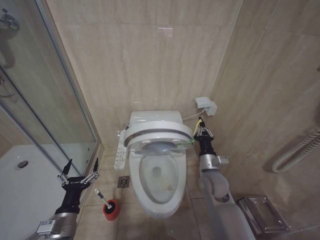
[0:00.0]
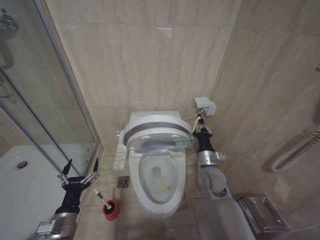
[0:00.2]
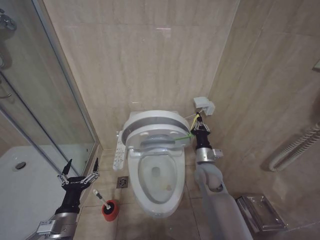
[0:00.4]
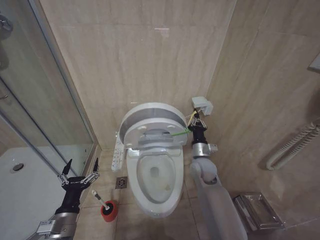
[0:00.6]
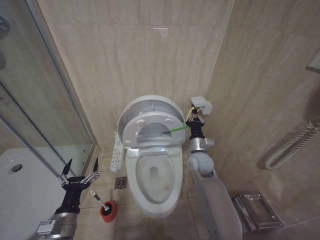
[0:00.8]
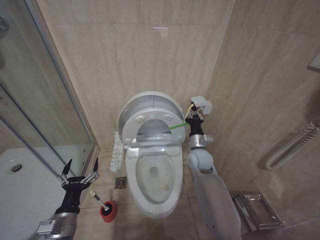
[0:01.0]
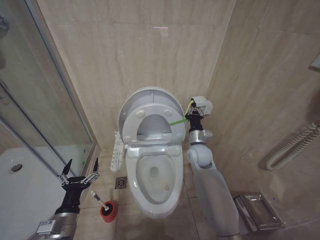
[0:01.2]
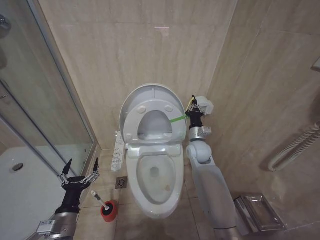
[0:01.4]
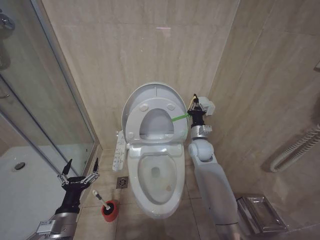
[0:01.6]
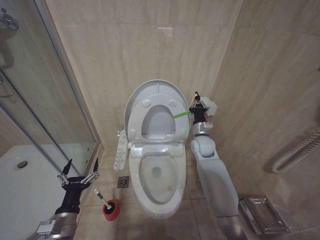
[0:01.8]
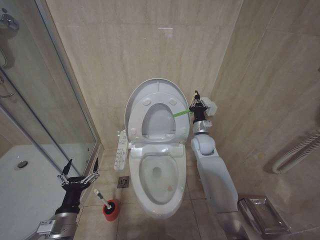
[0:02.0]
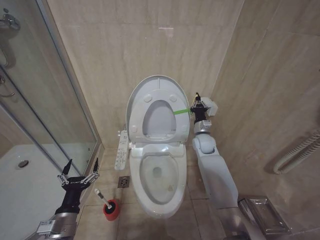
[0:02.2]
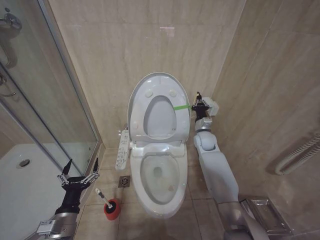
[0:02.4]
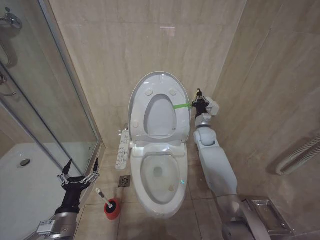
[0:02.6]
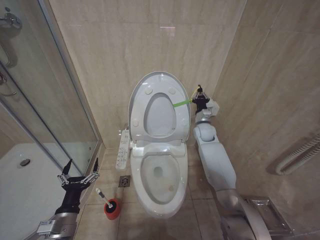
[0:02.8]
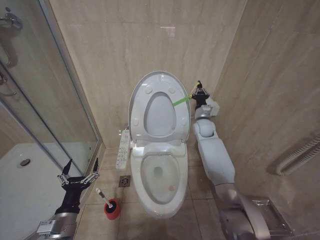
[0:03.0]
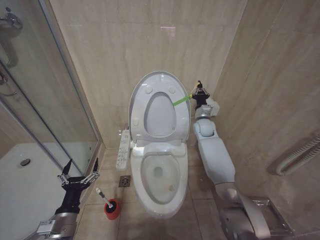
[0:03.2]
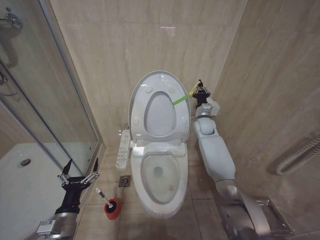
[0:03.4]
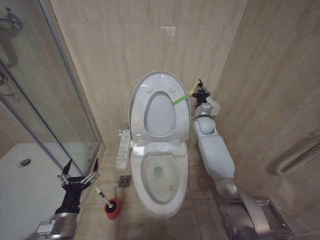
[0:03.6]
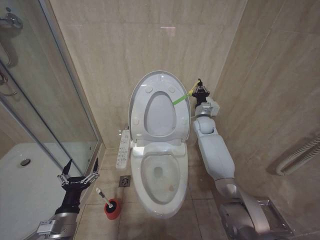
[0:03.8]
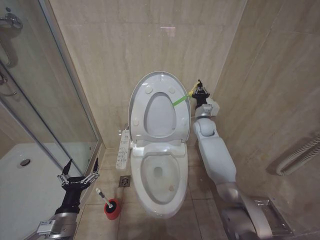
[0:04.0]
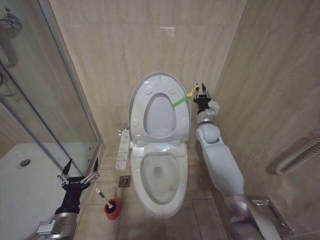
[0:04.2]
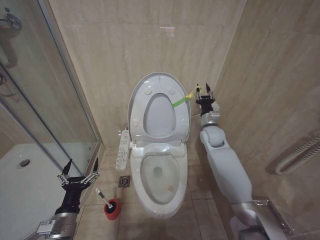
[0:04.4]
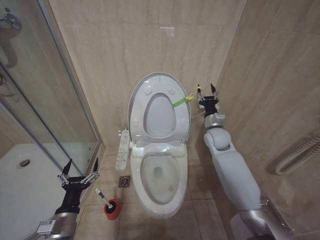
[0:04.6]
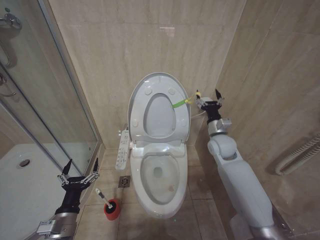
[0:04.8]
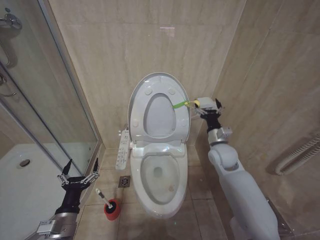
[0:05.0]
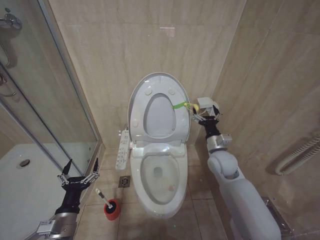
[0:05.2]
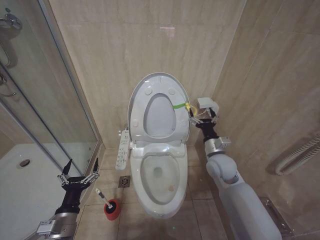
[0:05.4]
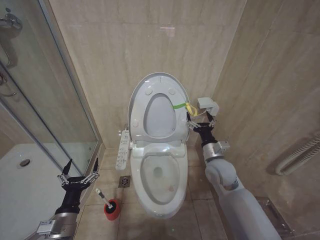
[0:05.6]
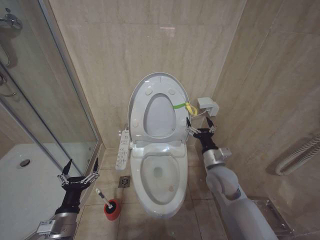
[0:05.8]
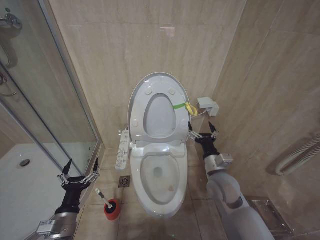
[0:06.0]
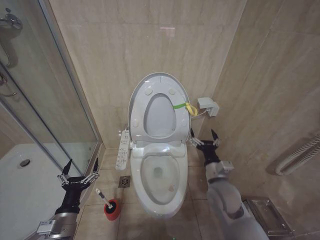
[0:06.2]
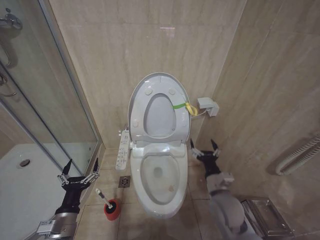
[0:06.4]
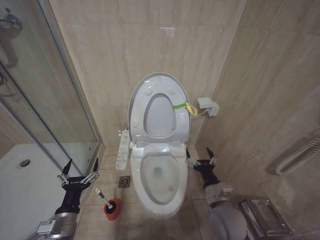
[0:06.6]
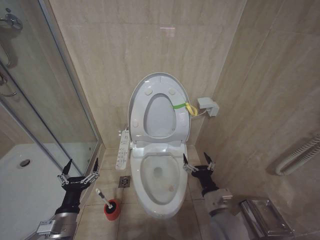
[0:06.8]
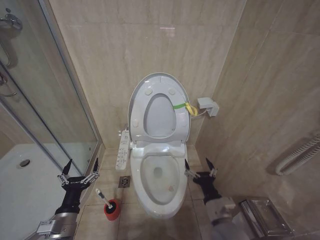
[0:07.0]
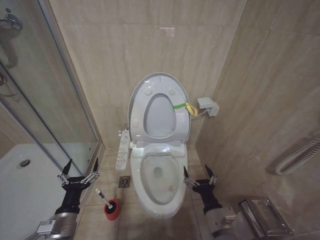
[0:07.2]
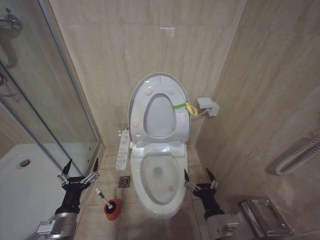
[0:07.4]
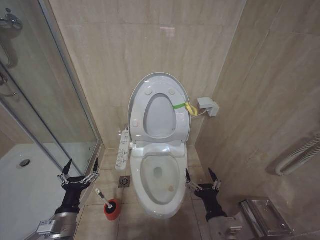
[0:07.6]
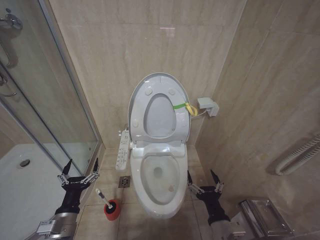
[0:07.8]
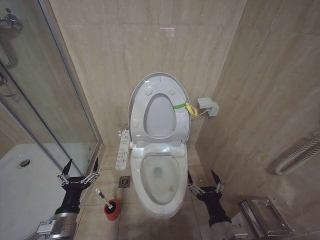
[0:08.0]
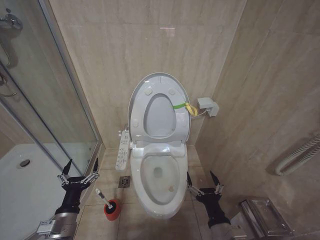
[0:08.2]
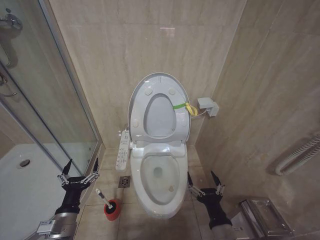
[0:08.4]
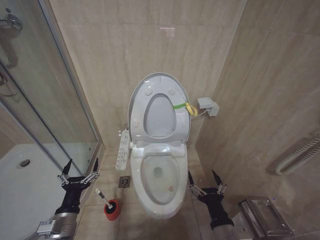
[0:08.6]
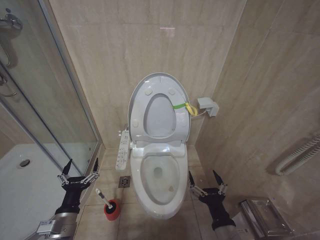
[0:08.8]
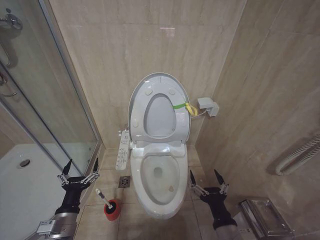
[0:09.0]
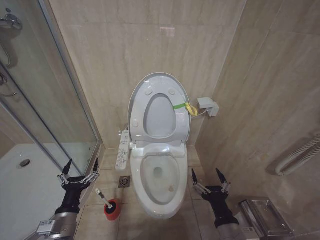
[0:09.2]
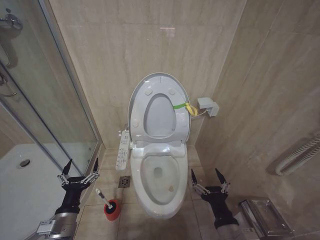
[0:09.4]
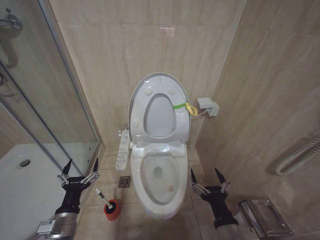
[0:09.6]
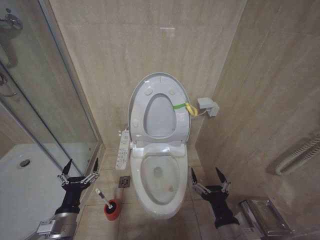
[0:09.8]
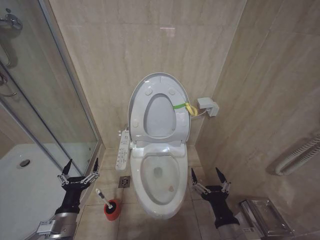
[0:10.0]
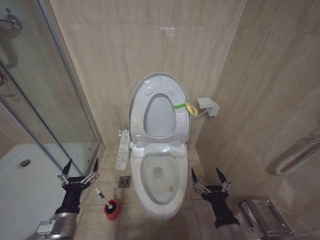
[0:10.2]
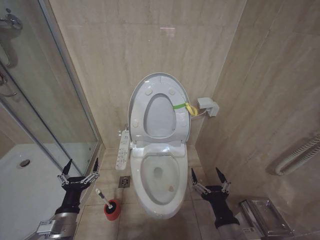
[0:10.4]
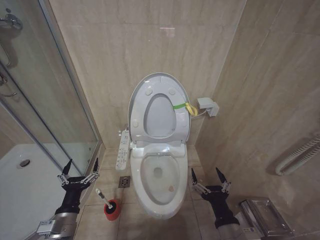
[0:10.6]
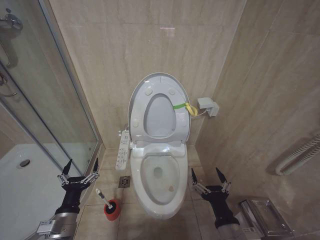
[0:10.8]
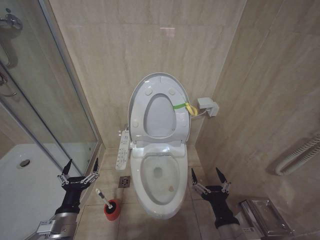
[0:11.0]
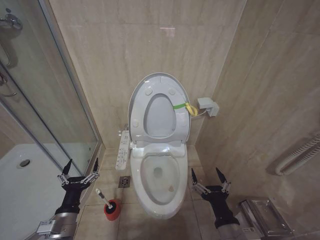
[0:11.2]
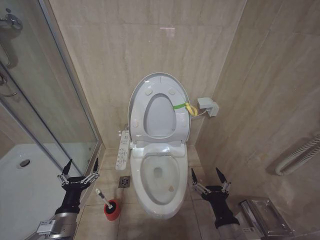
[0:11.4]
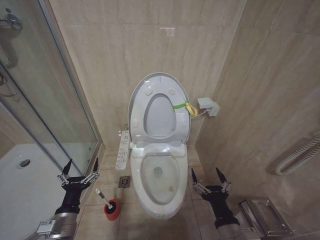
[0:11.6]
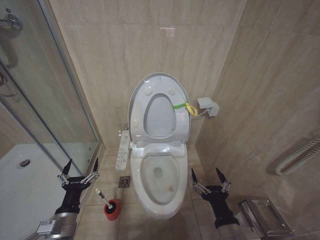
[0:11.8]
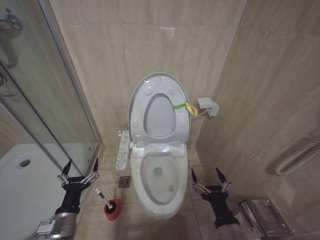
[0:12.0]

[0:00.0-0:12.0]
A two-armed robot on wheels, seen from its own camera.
Task of the whole recording: Open the toilet lid, clean the toilet bowl with a toilet brush, close the toilet lid, and flush.
0:00.0 to 0:01.6: The right gripper goes about 15 cm forward.
0:01.6 to 0:03.0: The right gripper goes approximately 10 cm forward.
0:03.0 to 0:04.4: The grippers make only small movements.
0:04.4 to 0:06.0: The right gripper shifts roughly 20 cm backward, and opens.
0:06.0 to 0:07.6: The right gripper moves backward and downward, approximately 20 cm.
0:07.6 to 0:09.0: There are only small adjustments of the grippers.
0:09.0 to 0:12.0: Neither gripper changes place.

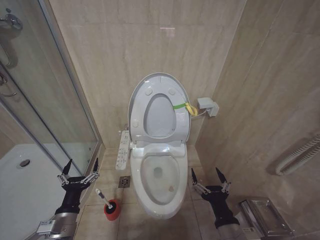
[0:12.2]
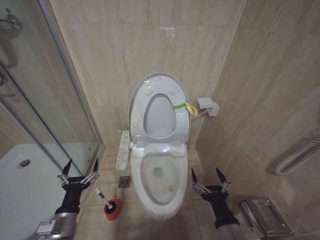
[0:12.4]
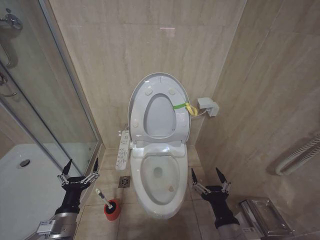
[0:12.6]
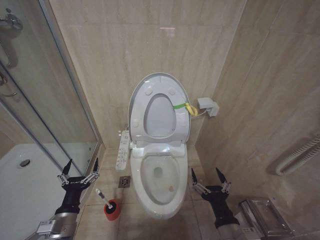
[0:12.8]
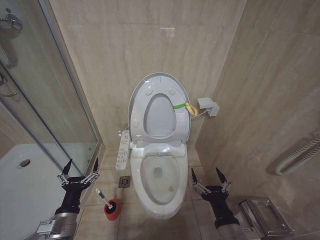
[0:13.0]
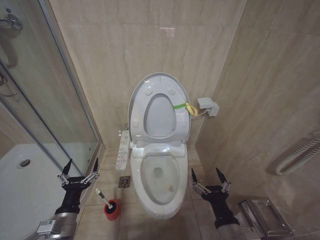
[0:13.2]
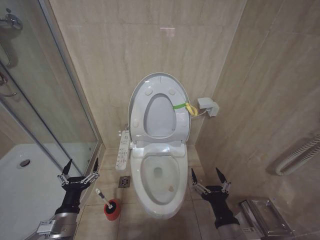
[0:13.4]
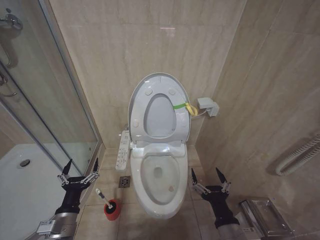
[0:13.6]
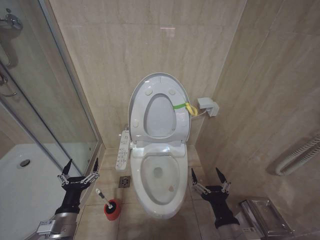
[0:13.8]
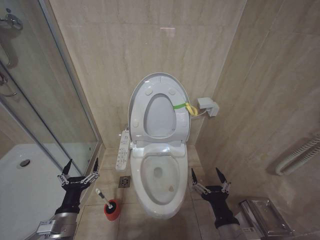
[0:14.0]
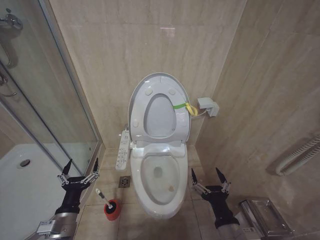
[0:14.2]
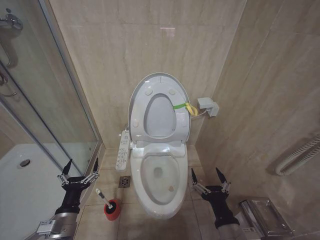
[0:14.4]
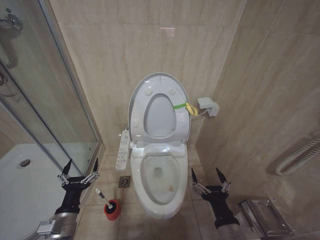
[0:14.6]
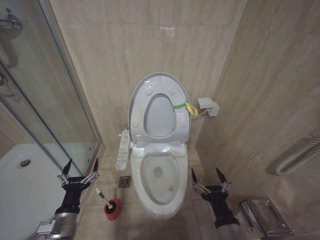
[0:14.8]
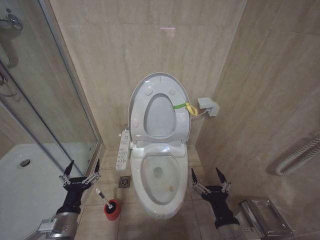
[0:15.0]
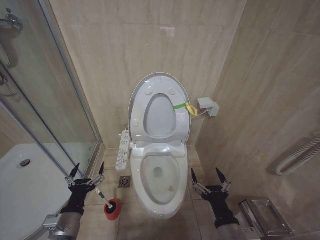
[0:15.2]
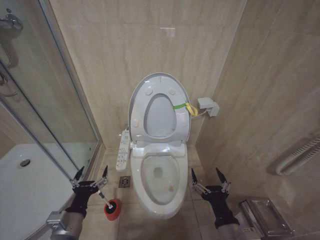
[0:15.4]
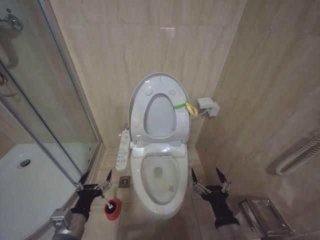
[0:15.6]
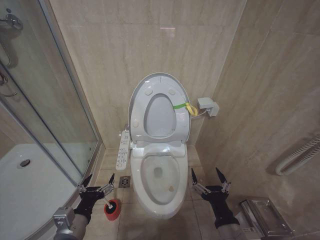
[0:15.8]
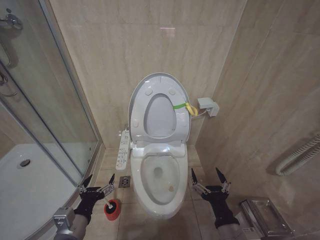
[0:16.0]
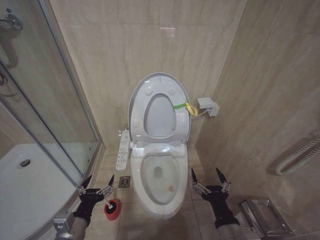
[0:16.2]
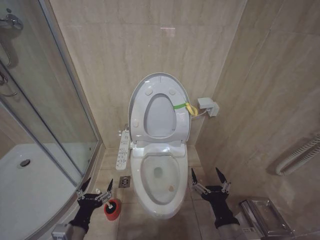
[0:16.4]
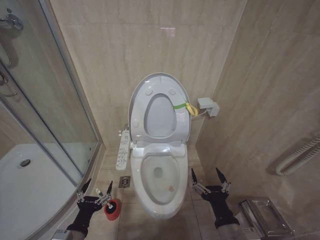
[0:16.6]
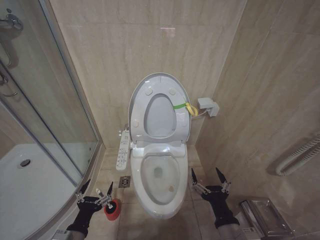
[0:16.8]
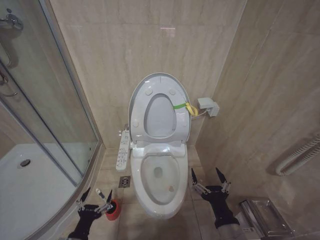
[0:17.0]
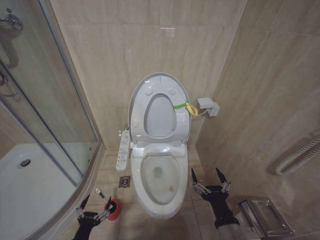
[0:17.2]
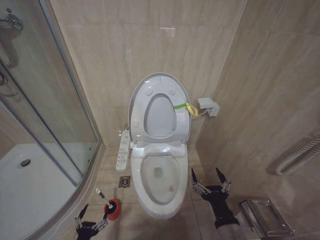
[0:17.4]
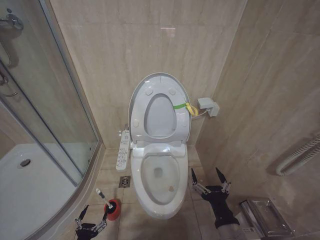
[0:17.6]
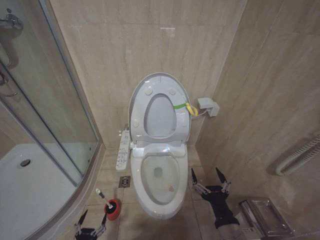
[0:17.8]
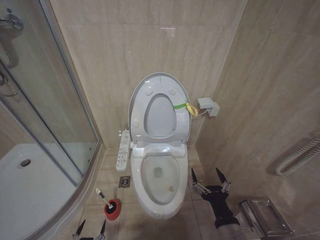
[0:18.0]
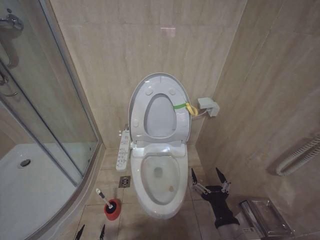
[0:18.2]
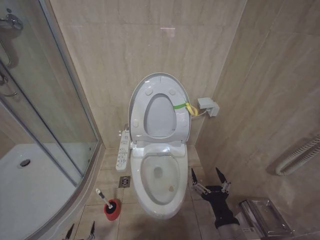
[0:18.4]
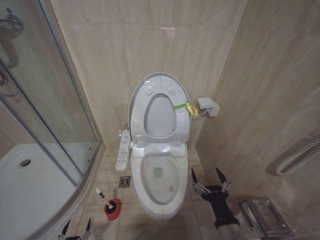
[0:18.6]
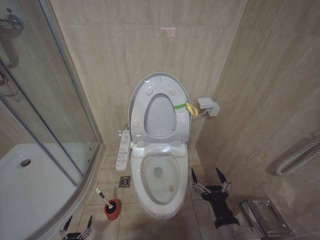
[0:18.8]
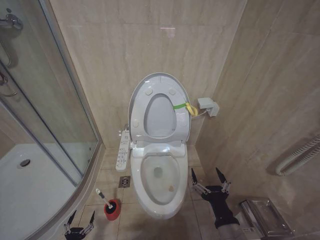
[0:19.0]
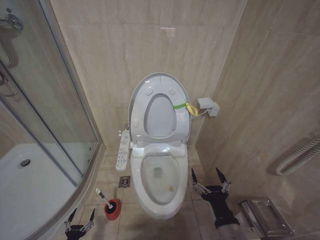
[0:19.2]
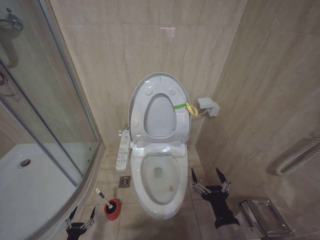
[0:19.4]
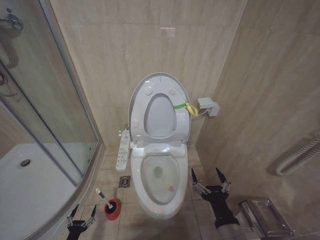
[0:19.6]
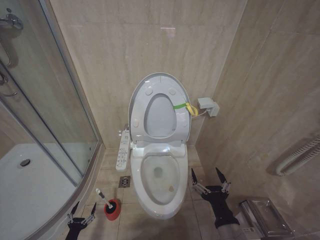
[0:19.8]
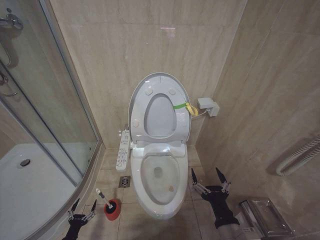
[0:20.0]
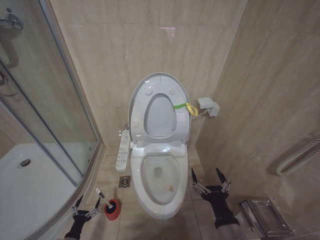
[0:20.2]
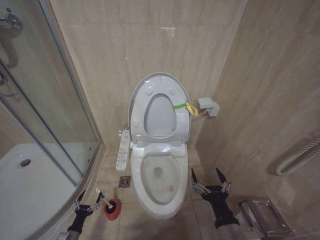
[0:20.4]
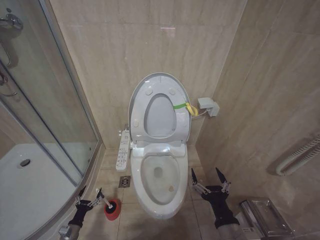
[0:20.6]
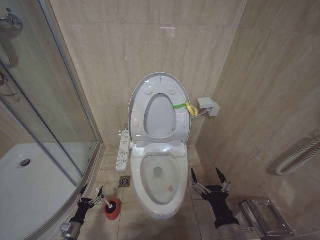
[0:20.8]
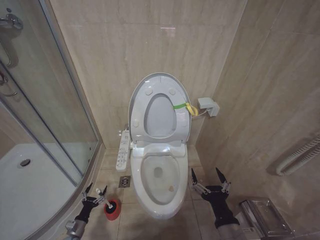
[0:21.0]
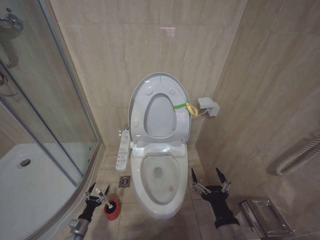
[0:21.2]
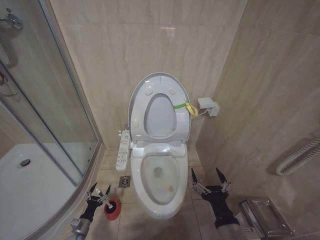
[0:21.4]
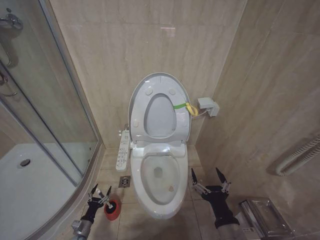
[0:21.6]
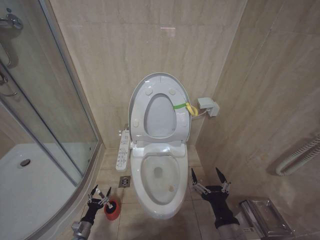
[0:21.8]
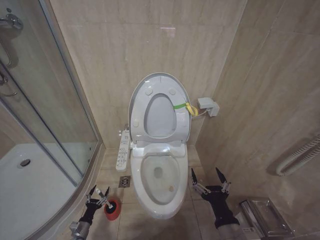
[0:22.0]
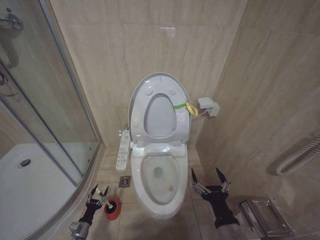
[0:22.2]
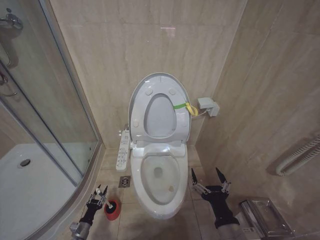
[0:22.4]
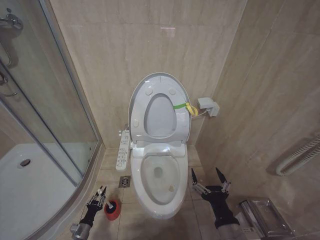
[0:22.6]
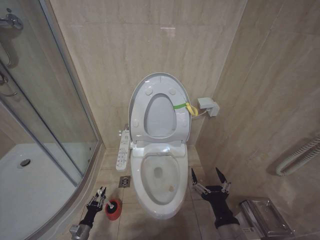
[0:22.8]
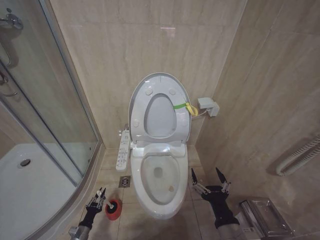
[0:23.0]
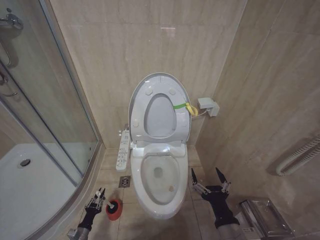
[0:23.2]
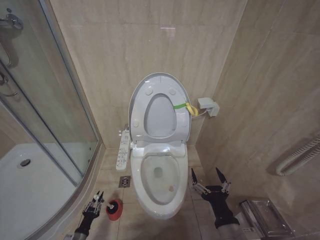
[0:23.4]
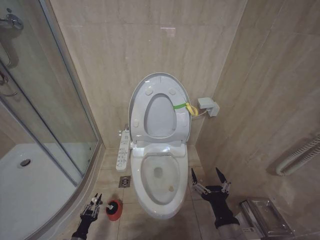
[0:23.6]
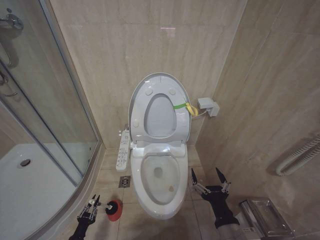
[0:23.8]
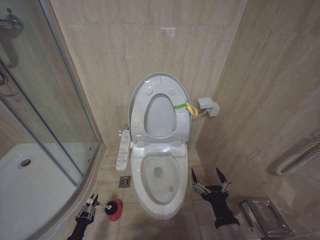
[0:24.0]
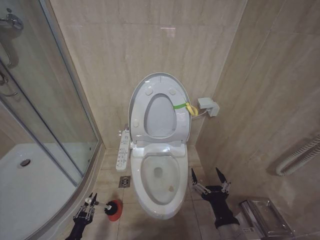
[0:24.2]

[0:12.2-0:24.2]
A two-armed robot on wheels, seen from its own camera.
Task of the whole recording: Open the toilet lid, clean the toilet bowl with a toilet brush, close the toilet lid, and flush.
0:12.2 to 0:13.8: Both grippers stay put.
0:13.8 to 0:15.2: The grippers move only a little.
0:16.6 to 0:18.2: The left gripper heads downward, covering some 25 cm.
0:18.2 to 0:19.8: The left gripper is displaced forward and to the left by about 10 cm.
0:19.8 to 0:21.2: The left gripper goes roughly 10 cm forward.
0:21.2 to 0:22.6: The left gripper closes.
0:22.6 to 0:24.2: The left gripper goes about 10 cm backward and upward.
